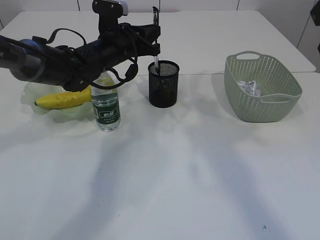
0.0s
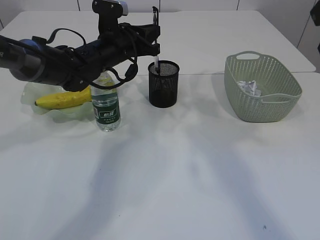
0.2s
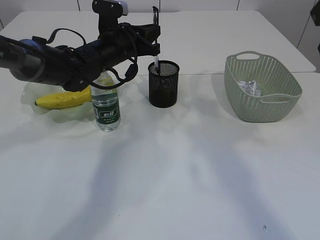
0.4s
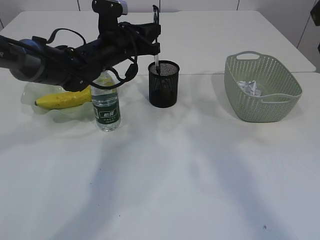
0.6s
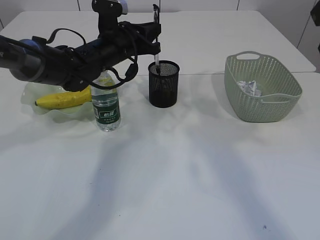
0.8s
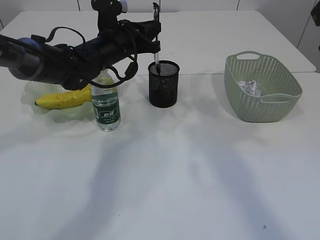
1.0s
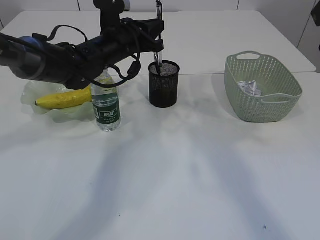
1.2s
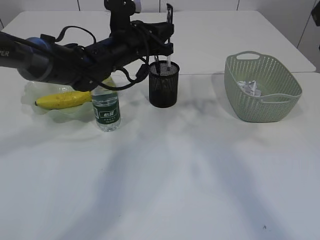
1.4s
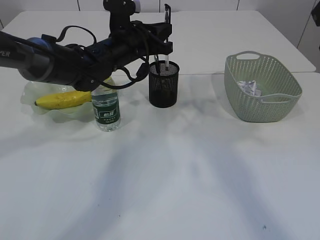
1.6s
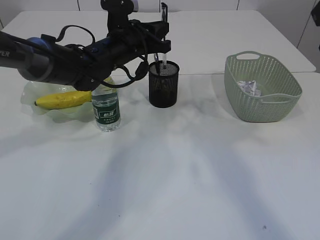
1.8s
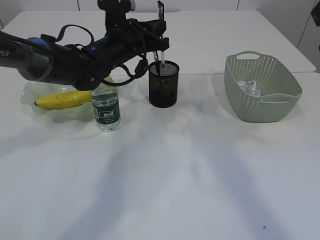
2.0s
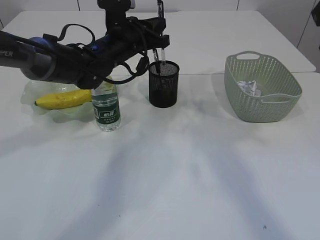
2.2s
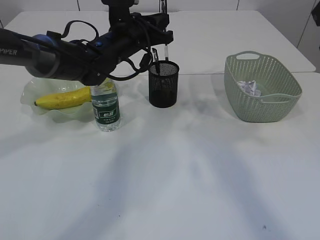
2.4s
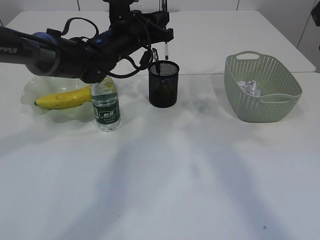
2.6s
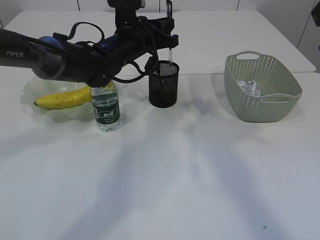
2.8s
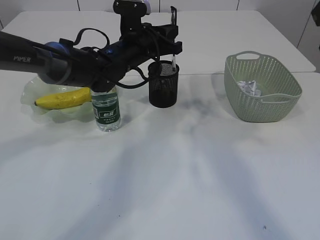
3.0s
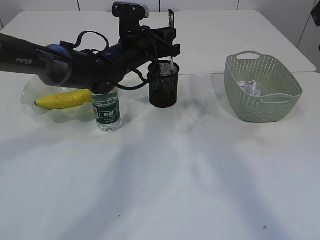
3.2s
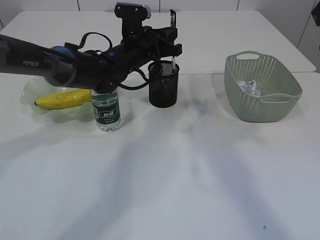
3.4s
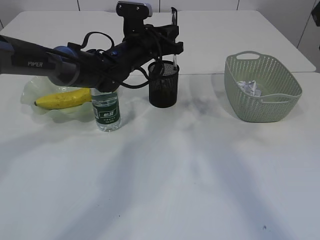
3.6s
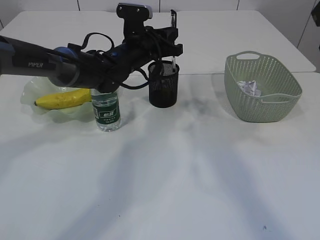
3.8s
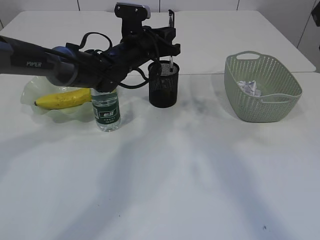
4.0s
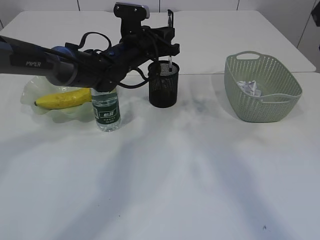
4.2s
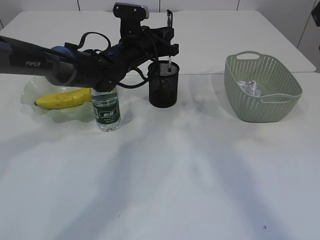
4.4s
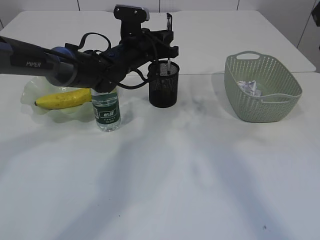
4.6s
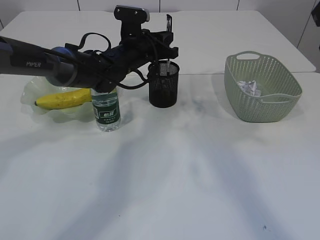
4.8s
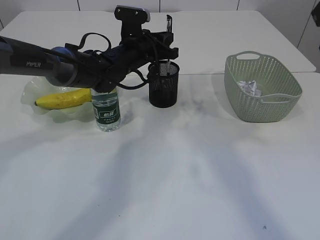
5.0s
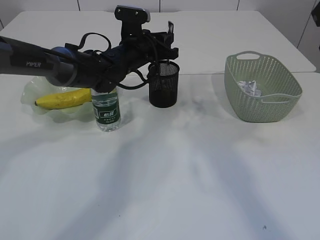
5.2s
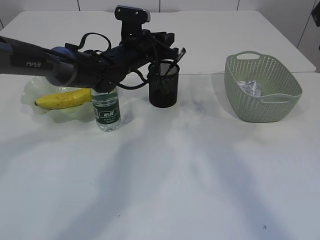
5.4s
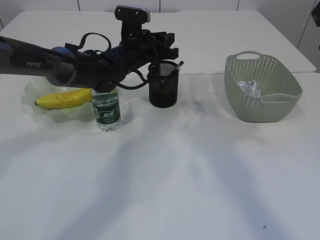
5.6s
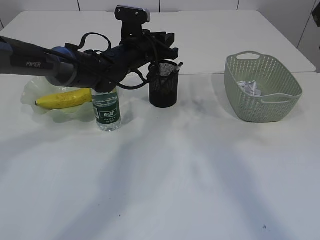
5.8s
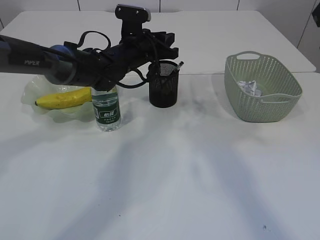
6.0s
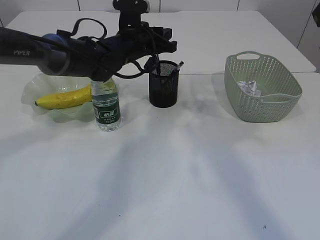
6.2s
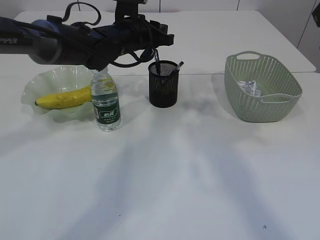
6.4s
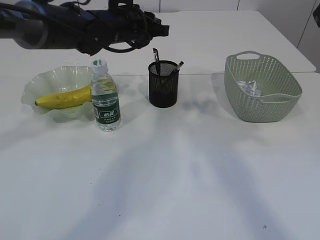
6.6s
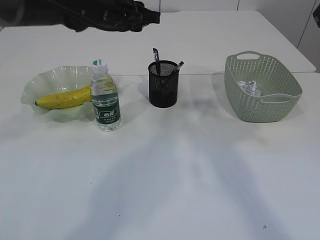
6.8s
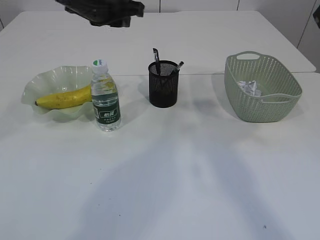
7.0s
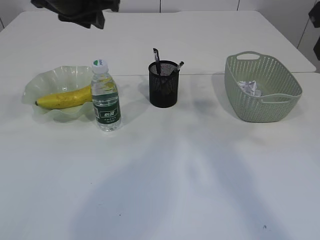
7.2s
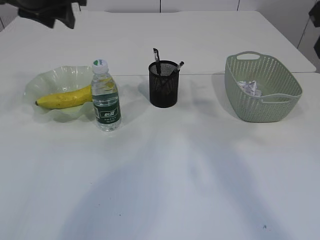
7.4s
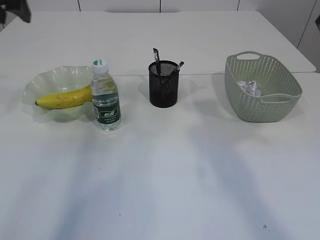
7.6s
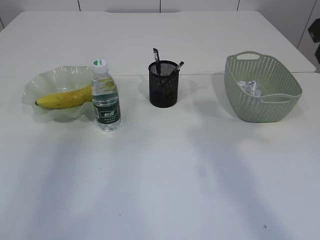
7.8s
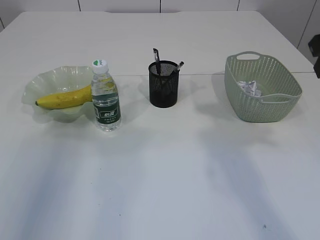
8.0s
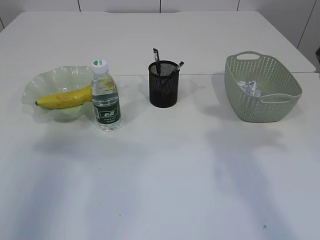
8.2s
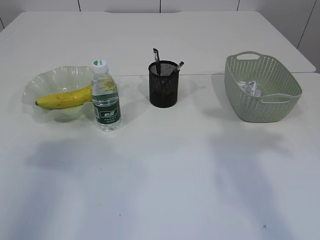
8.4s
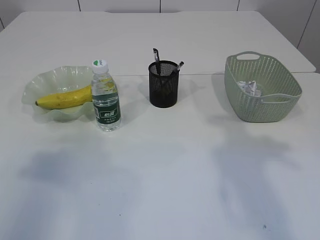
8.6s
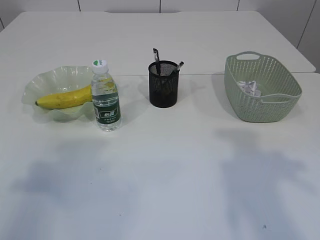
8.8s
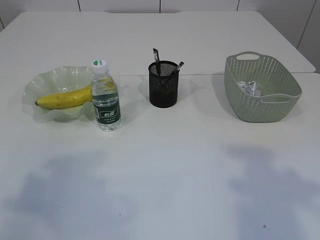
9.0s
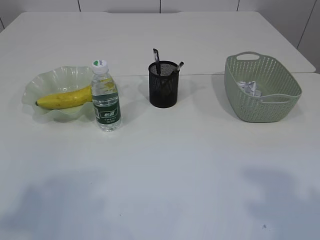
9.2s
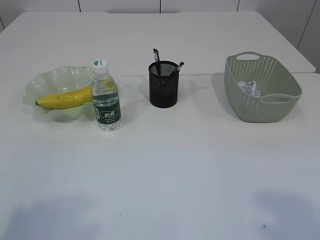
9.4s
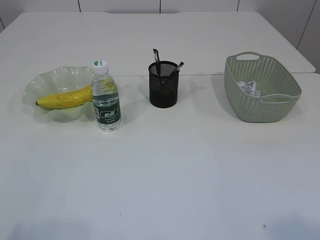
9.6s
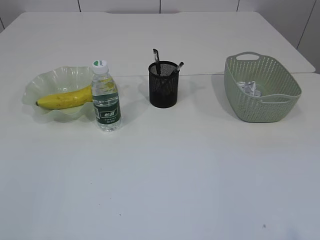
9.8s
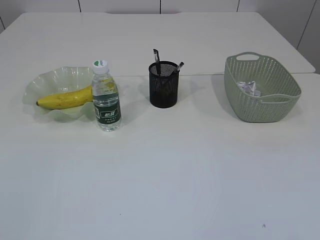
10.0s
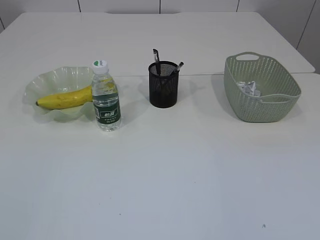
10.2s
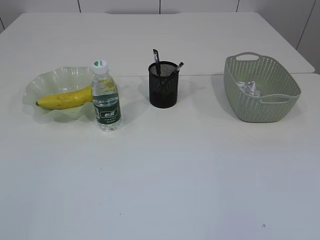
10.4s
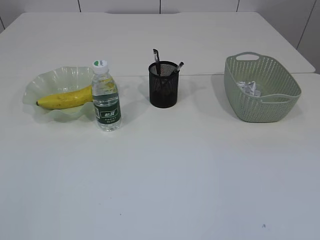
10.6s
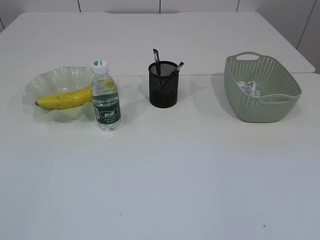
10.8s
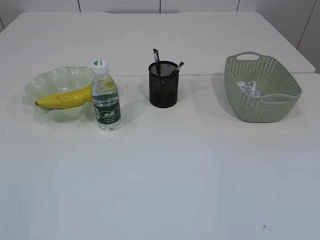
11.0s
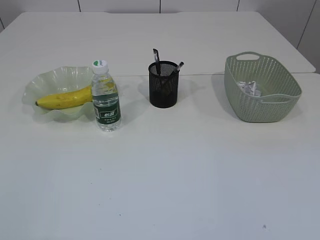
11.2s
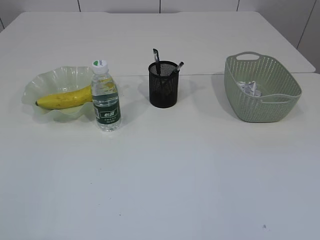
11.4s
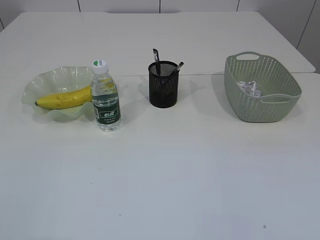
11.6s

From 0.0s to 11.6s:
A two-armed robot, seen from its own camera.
Step, from 0.0s to 6.6s: Place the pen into the pen holder.
From 0.0s to 4.4s: The grippers make only small movements.
From 4.4s to 5.8s: Both grippers stay about where they are.
From 5.8s to 7.2s: The left gripper is displaced upward, to the left and backward by about 20 cm.
From 7.2s to 8.8s: The left gripper is displaced backward and to the left by some 30 cm; the right gripper shifts about 5 cm backward, and opens its fingers.
From 8.8s to 10.2s: The left gripper shifts some 20 cm backward.

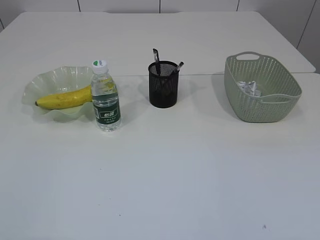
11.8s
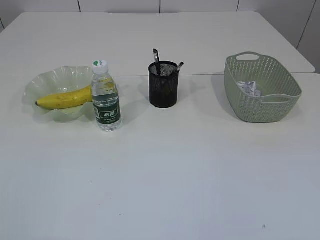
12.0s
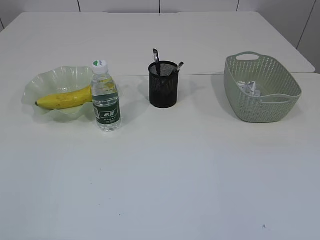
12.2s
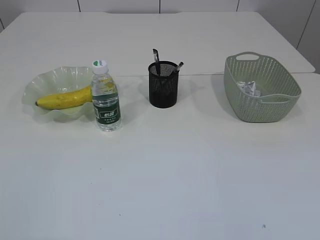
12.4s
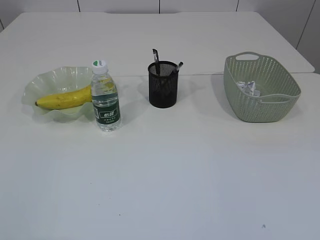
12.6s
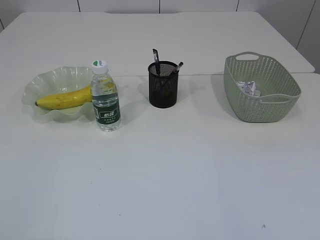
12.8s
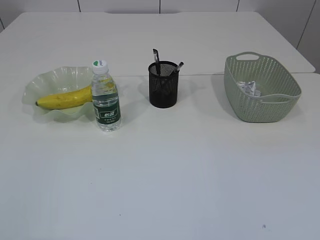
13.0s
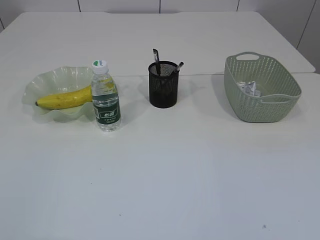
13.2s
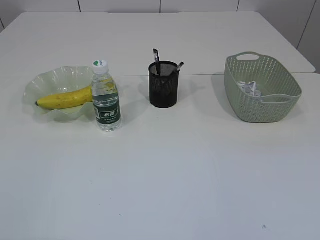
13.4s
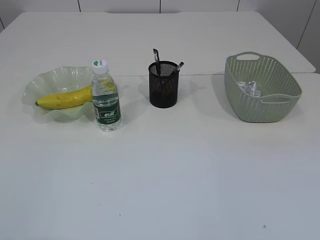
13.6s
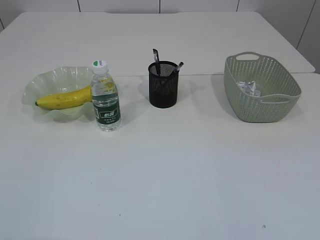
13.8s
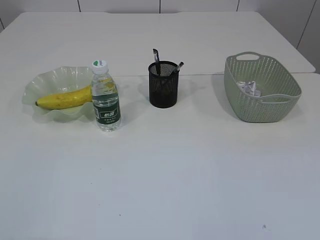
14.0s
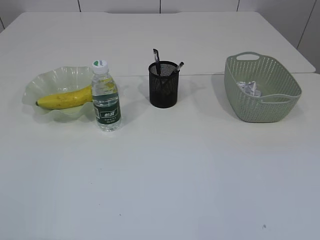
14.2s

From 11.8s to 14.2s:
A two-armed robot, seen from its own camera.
From 13.0s to 14.2s: Neither gripper changes place.

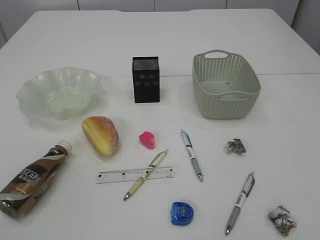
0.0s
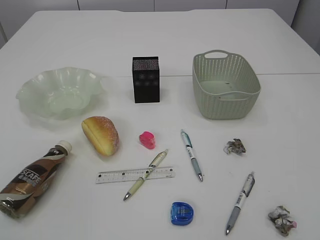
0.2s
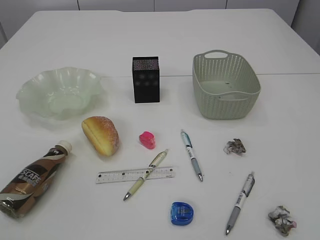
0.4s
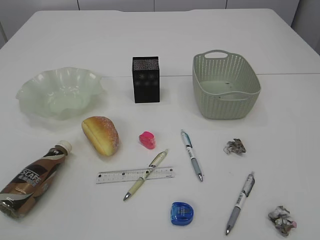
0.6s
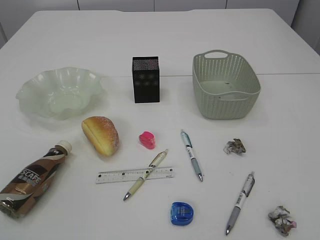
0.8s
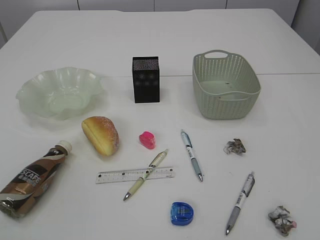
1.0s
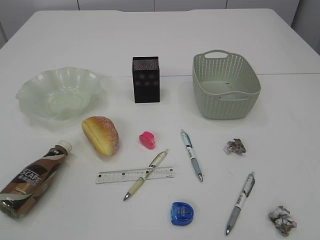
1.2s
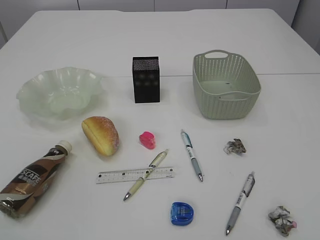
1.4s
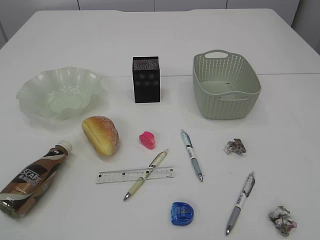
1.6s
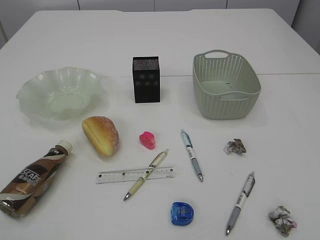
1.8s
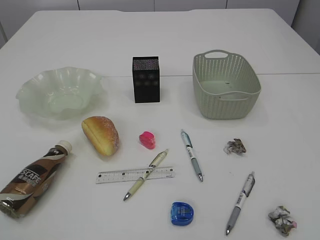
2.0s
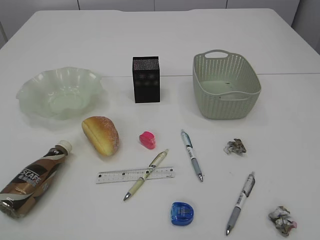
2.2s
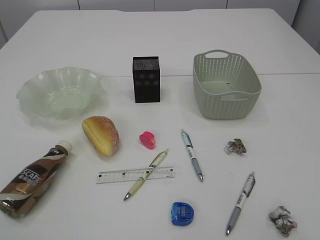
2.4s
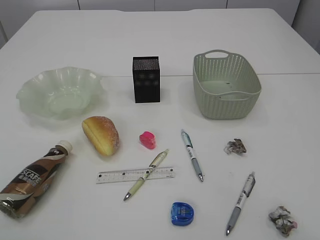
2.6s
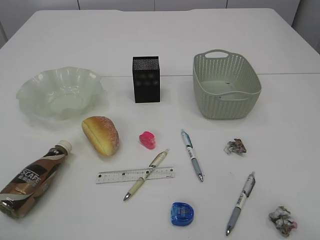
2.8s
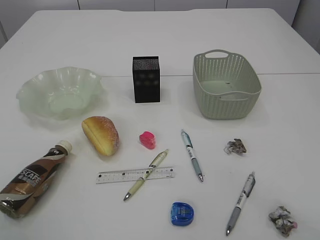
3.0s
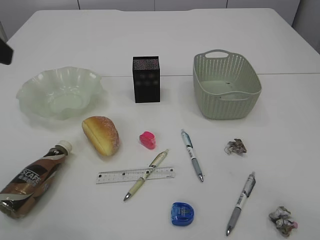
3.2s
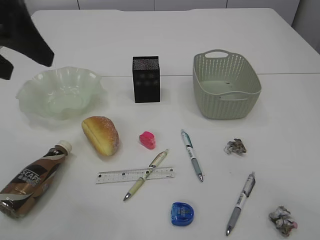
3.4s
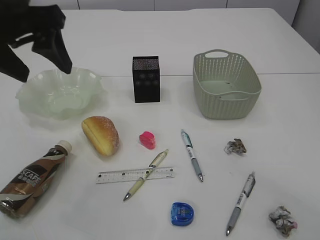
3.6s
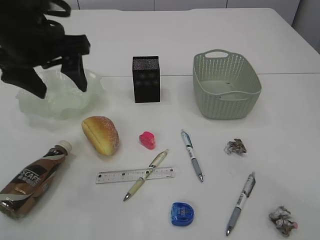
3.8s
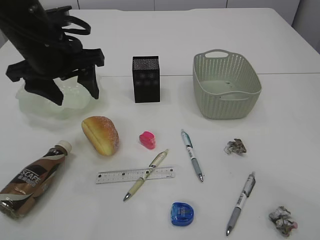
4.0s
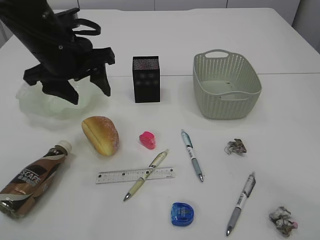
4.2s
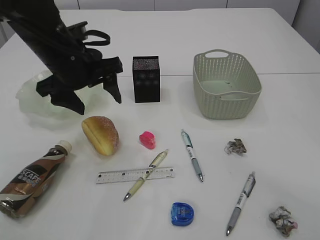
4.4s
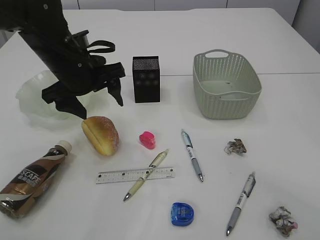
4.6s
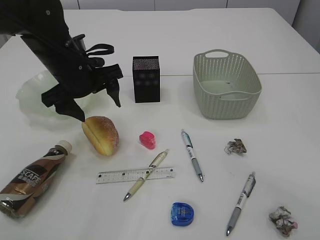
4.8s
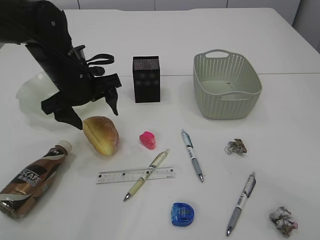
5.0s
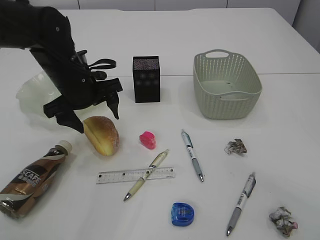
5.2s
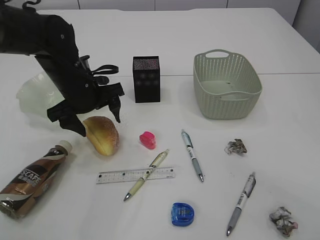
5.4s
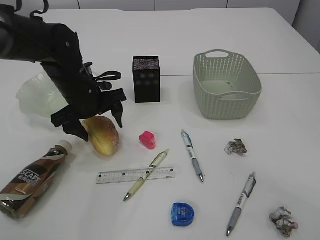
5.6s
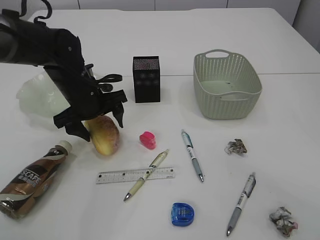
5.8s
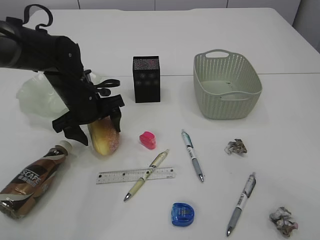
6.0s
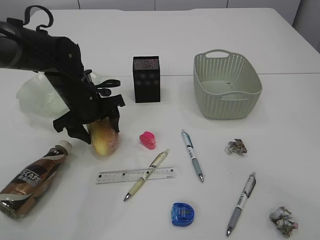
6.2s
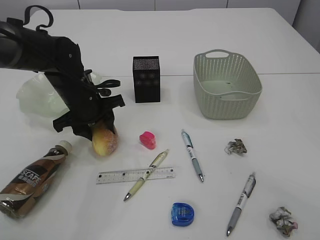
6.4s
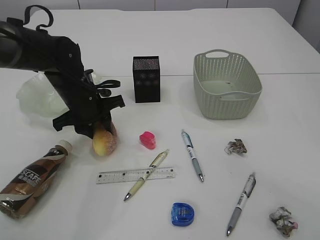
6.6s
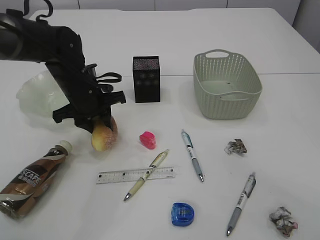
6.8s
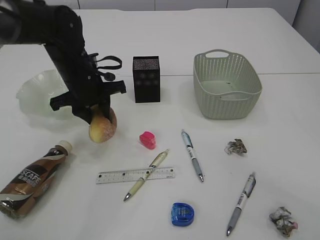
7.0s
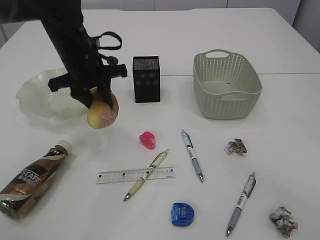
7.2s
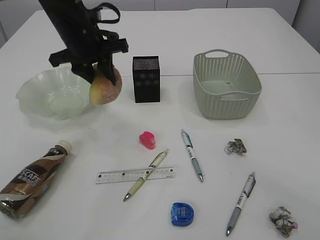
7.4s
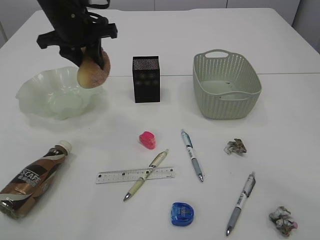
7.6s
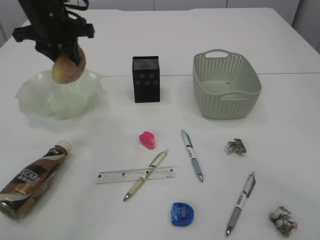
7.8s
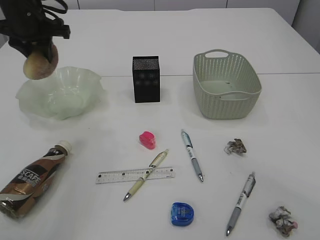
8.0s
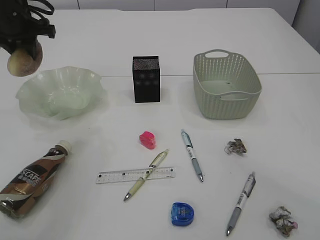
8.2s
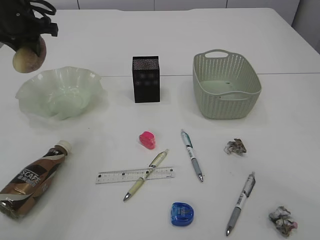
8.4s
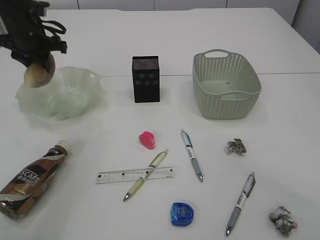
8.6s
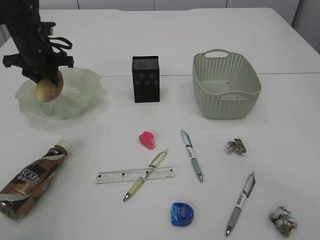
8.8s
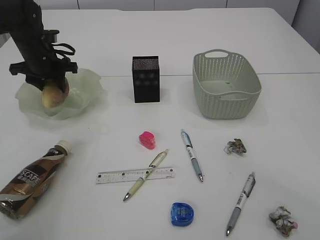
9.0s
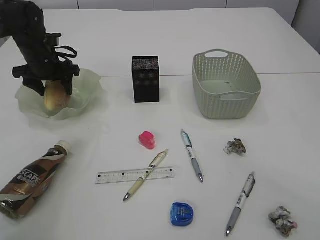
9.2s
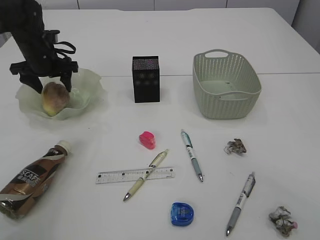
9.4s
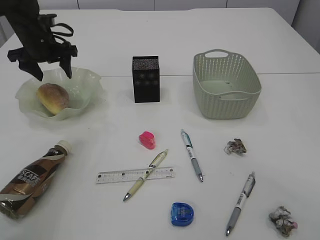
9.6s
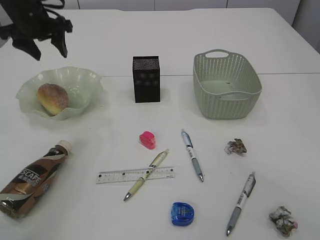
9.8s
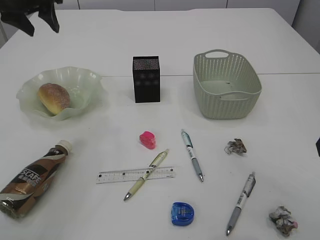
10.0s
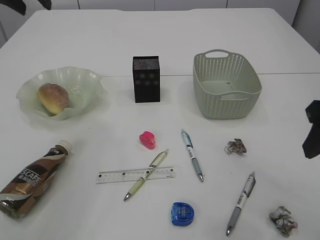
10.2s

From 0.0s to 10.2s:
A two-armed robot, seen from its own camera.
Step, from 7.4s to 9.6s: place the bread in the plate.
From 3.0s to 4.4s: The left gripper is displaced forward, downward and to the right by some 25 cm. Meanwhile the right gripper goes about 5 cm forward.
From 4.4s to 5.8s: The left gripper moves downward, some 10 cm.
From 5.8s to 7.2s: The left gripper heads upward, covering approximately 5 cm, and closes its fingers.
From 7.2s to 8.8s: The left gripper is displaced to the left and forward by roughly 15 cm.
From 8.8s to 10.2s: The left gripper travels upward by some 15 cm, and opens.
